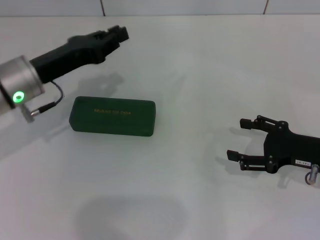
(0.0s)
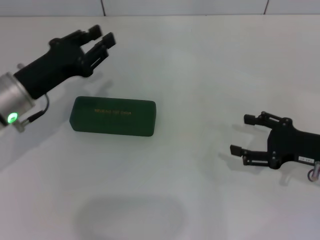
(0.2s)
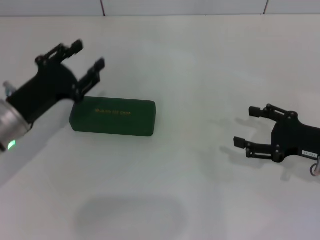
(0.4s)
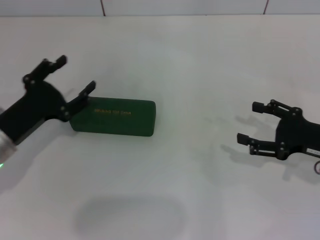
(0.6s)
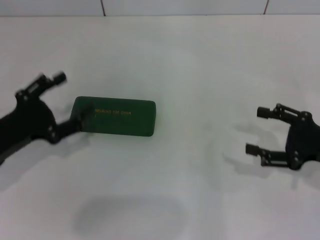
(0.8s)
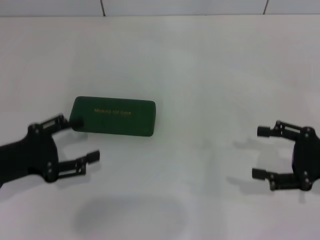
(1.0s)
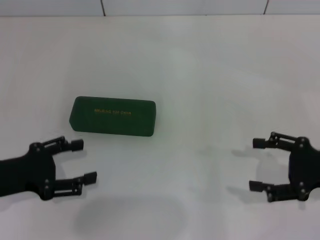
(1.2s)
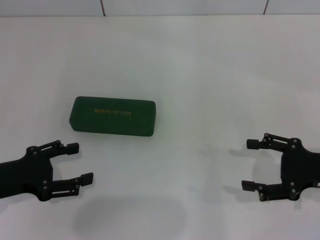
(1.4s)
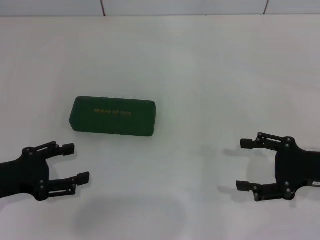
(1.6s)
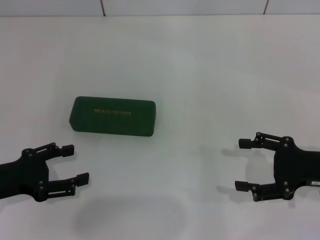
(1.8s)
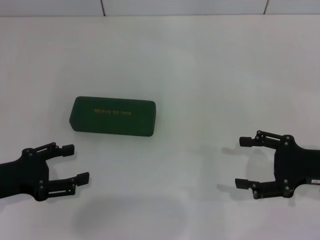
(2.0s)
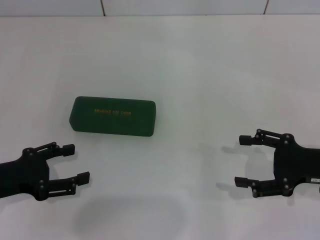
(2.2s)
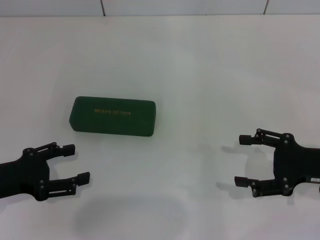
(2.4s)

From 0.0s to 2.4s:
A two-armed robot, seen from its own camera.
From 0.0s to 1.2s: The left gripper moves backward and to the left, some 15 cm, and opens.
From 1.2s to 2.4s: The grippers make only small movements.

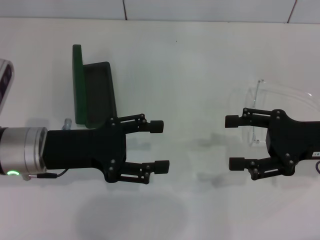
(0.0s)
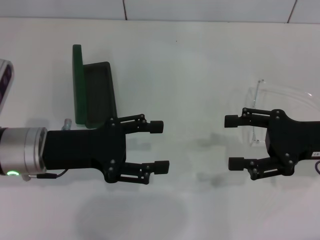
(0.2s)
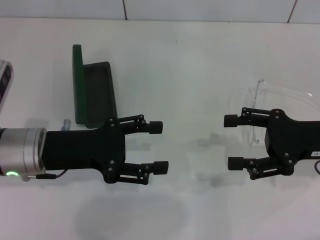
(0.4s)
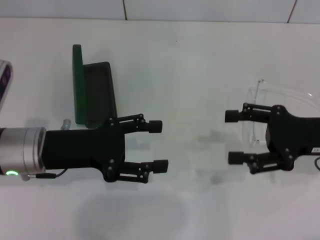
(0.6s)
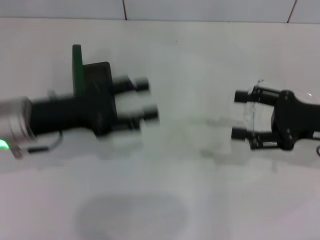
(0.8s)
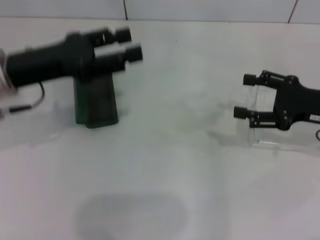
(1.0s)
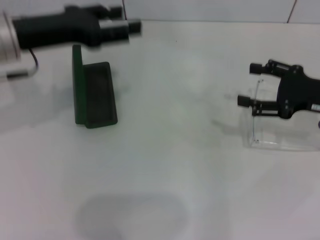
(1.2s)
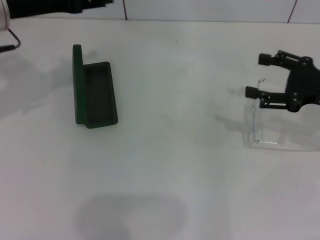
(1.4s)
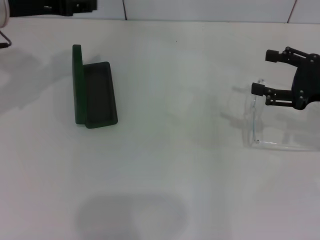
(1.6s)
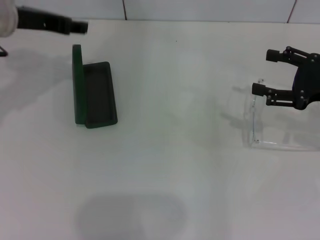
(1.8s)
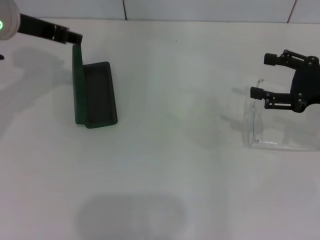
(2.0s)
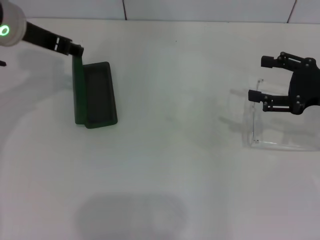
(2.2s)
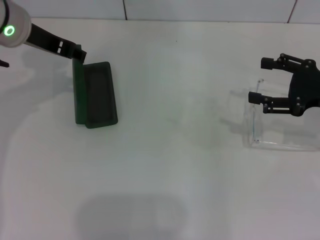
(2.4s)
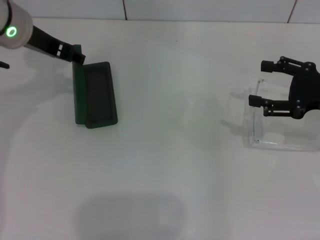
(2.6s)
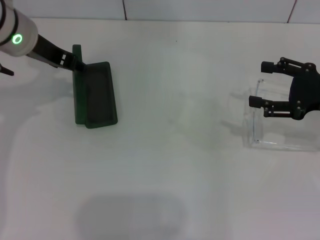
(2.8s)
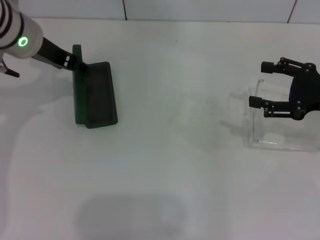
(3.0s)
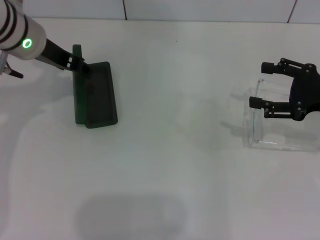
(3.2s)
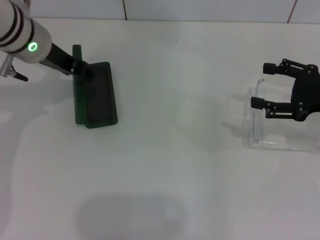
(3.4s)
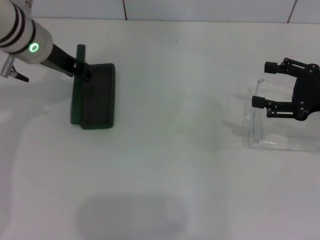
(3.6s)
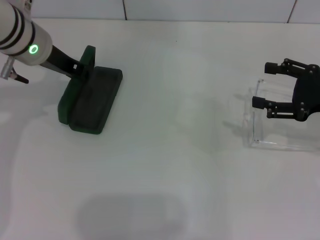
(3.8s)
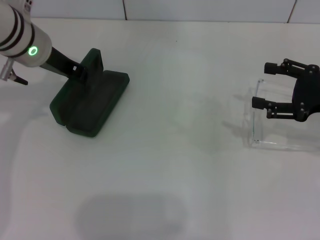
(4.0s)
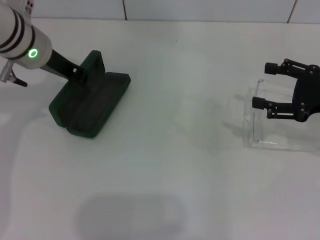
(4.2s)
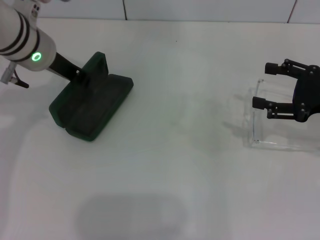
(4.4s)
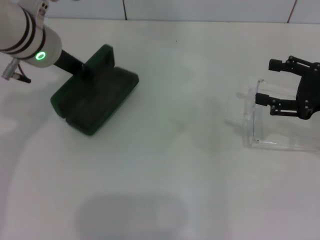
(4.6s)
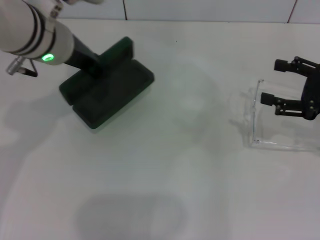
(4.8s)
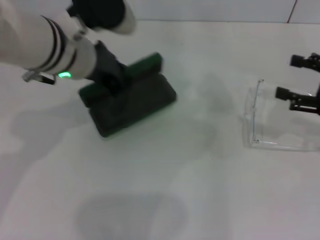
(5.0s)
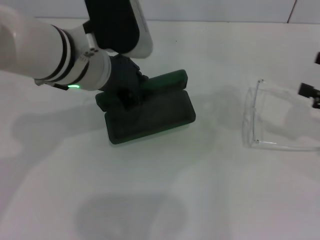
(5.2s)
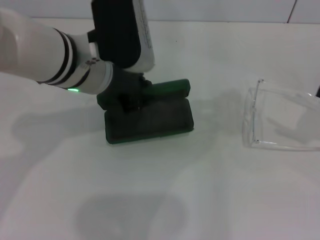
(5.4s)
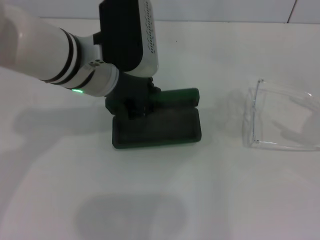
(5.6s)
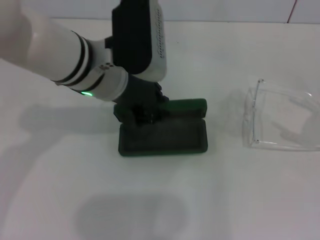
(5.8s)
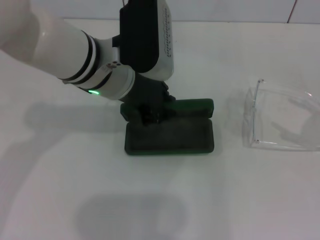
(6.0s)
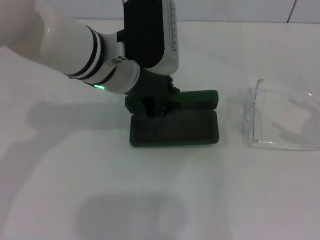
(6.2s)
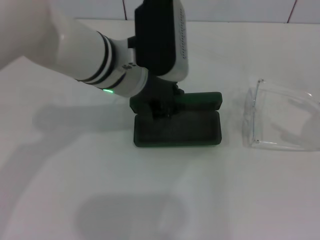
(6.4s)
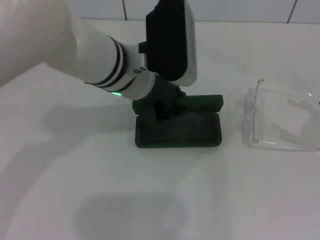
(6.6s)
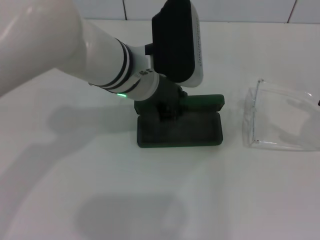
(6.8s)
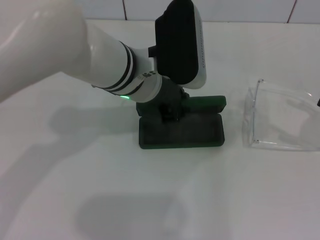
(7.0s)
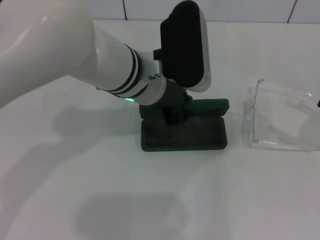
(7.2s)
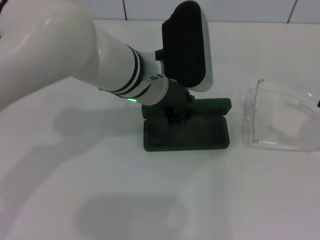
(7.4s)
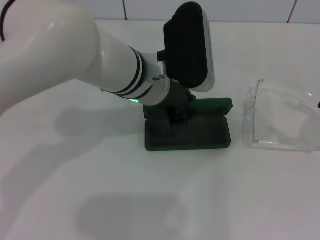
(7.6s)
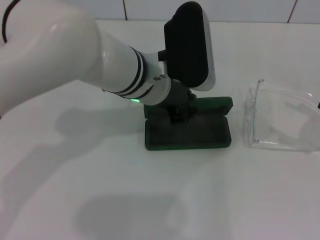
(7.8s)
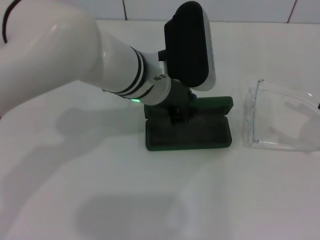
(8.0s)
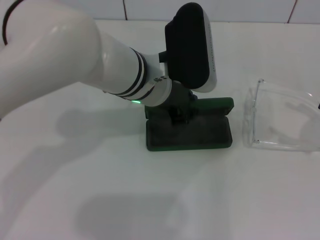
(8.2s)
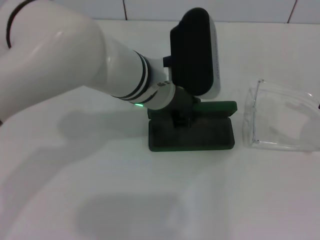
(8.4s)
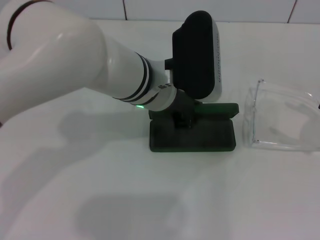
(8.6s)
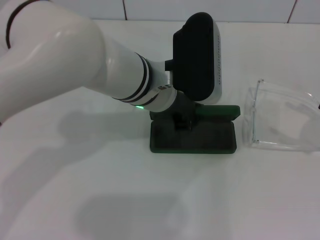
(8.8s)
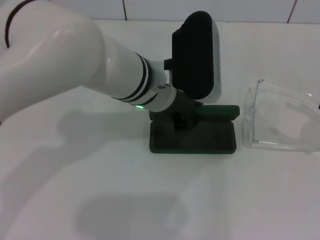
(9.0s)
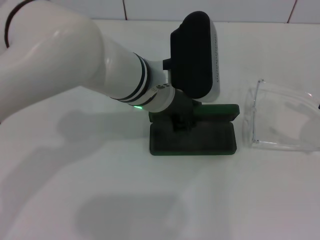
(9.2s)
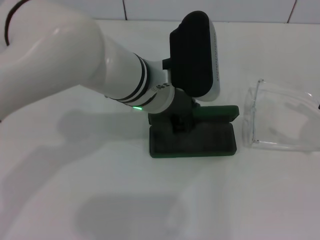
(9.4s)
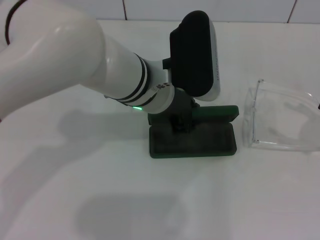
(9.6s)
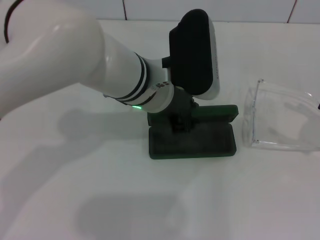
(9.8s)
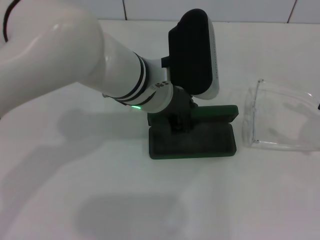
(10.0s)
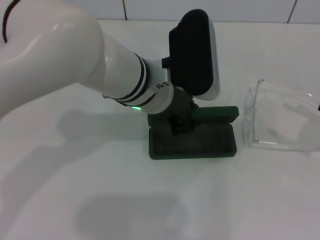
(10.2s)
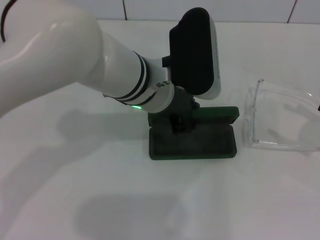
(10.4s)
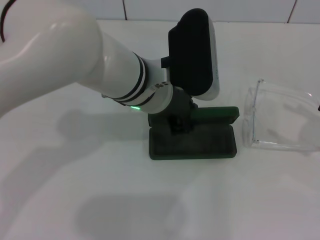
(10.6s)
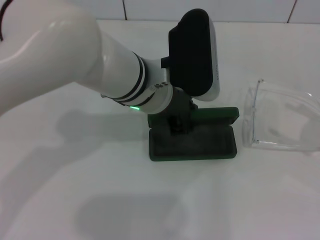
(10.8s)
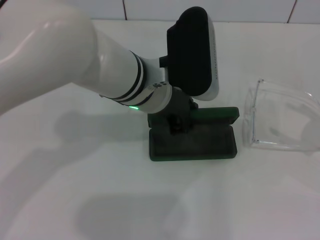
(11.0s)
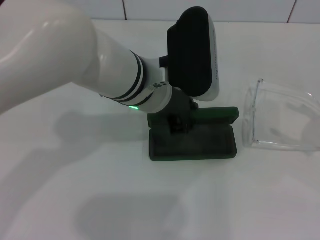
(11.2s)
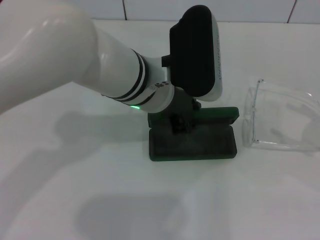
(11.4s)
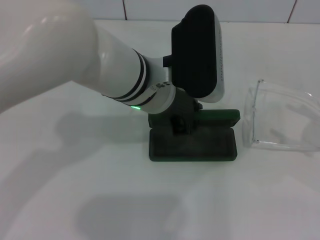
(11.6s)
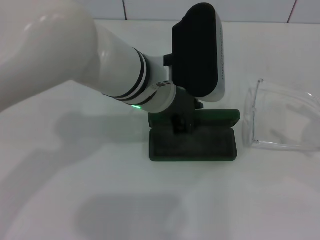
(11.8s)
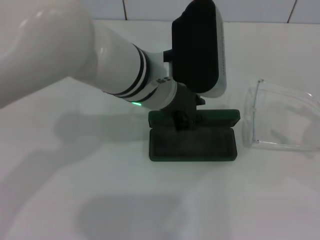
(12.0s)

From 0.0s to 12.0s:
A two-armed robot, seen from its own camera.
Step, from 0.0s to 4.0s: Grab the glasses case with your left hand.
Step, from 4.2s to 10.8s: Place the glasses case in the center of the table with your left hand.
From 0.0s to 1.6s: The right gripper moves roughly 5 cm. Meanwhile the left gripper shifts some 15 cm upward and forward.
From 1.6s to 3.0s: The left gripper moves roughly 5 cm.
From 3.0s to 4.4s: The left gripper closes its fingers.
From 4.4s to 6.0s: Both grippers travel together to the right and backward, roughly 10 cm.
From 6.0s to 7.6s: The left gripper shifts by some 5 cm.
From 7.6s to 10.4s: Both grippers stay put.
From 10.4s to 12.0s: The grippers make only small movements.

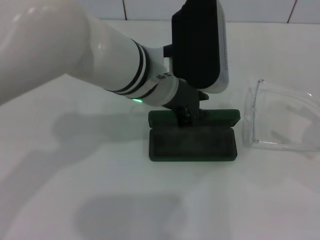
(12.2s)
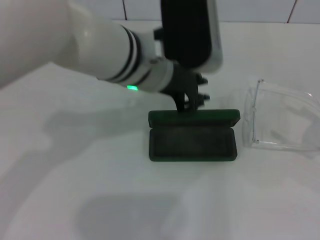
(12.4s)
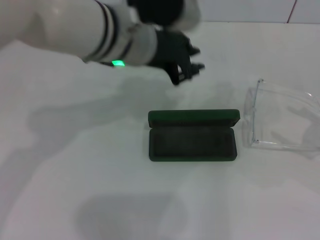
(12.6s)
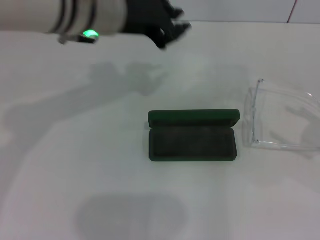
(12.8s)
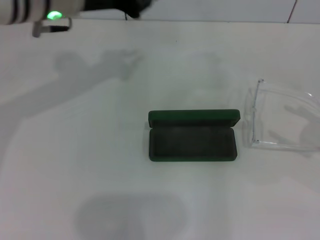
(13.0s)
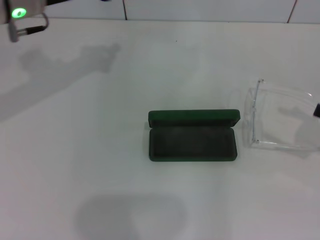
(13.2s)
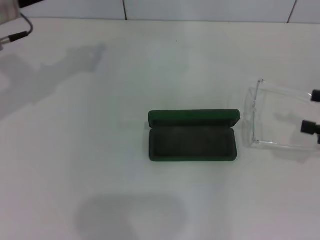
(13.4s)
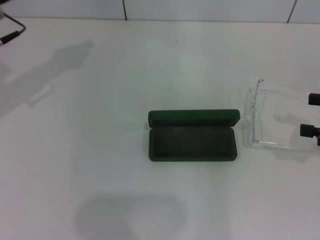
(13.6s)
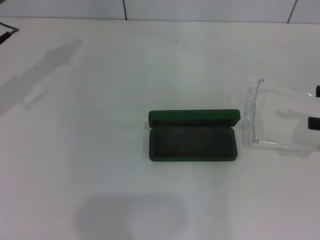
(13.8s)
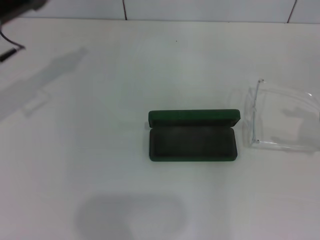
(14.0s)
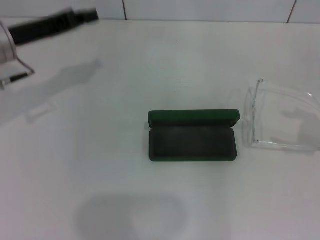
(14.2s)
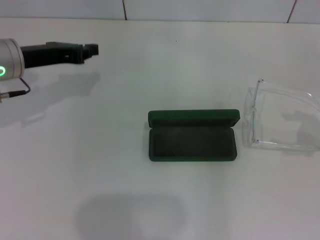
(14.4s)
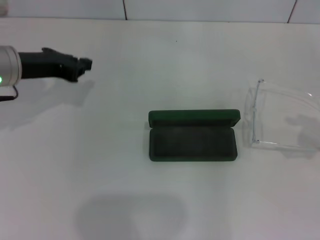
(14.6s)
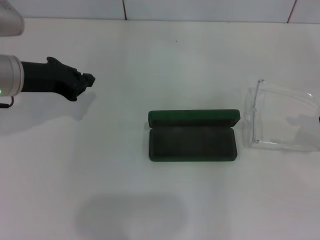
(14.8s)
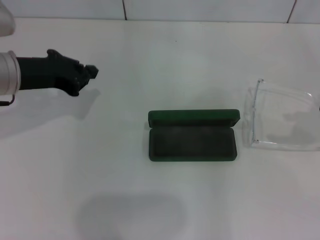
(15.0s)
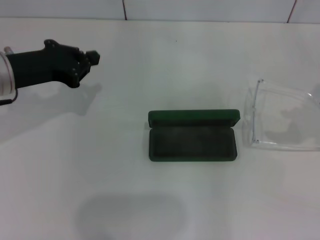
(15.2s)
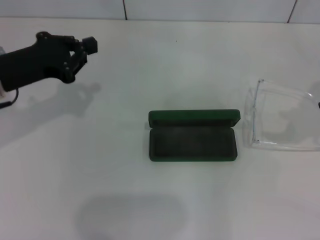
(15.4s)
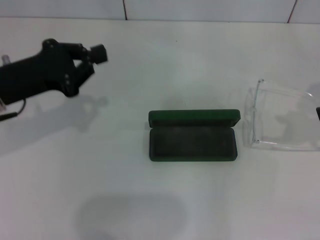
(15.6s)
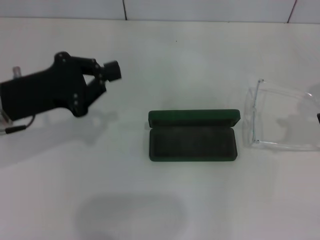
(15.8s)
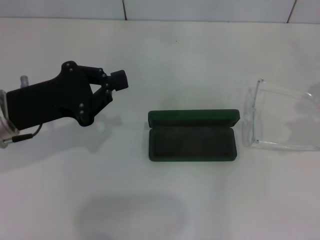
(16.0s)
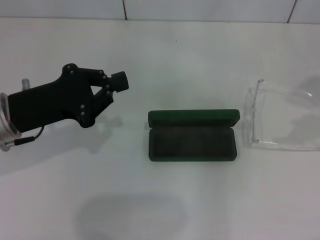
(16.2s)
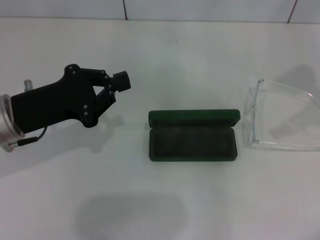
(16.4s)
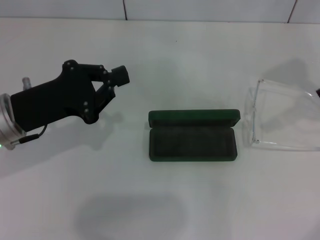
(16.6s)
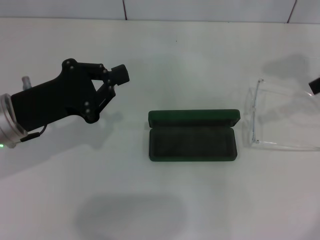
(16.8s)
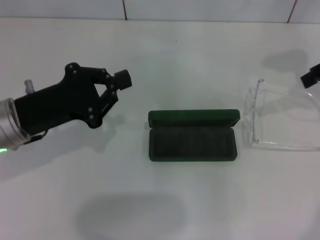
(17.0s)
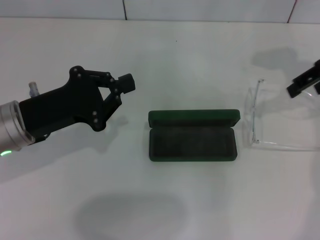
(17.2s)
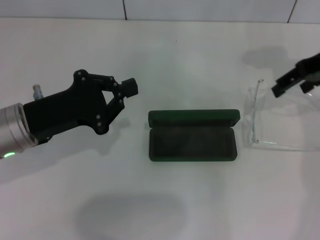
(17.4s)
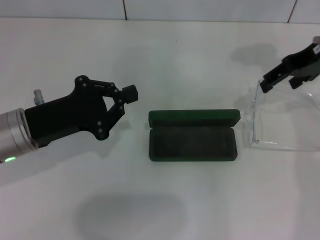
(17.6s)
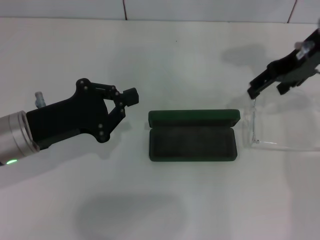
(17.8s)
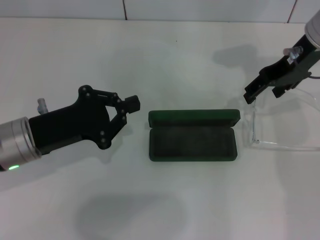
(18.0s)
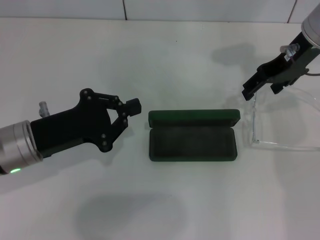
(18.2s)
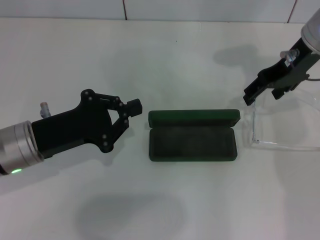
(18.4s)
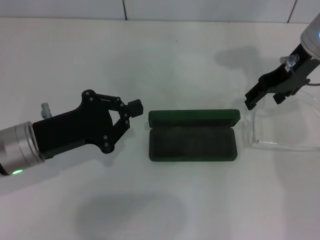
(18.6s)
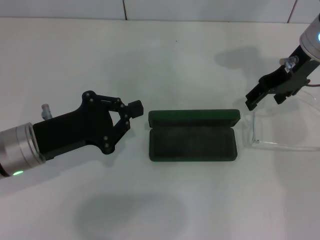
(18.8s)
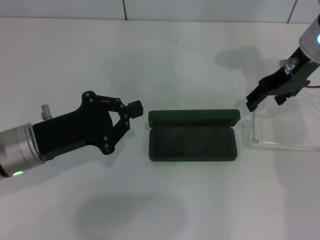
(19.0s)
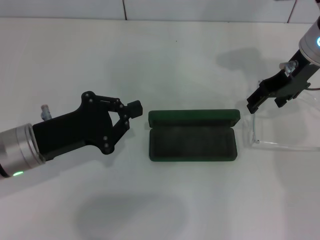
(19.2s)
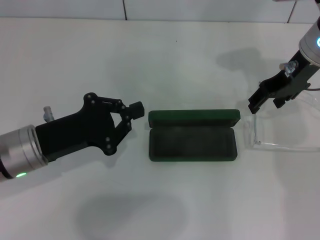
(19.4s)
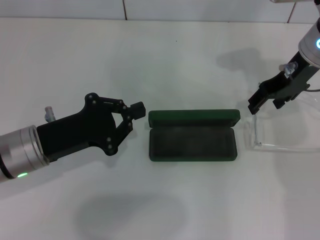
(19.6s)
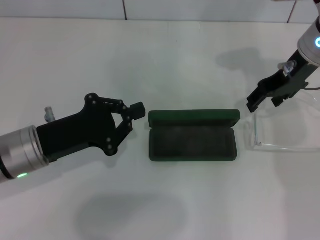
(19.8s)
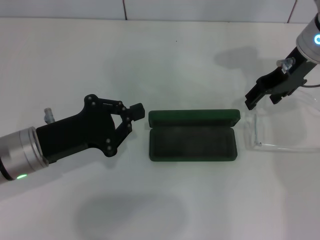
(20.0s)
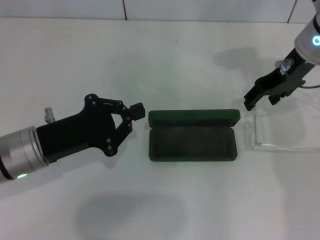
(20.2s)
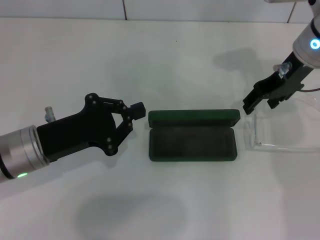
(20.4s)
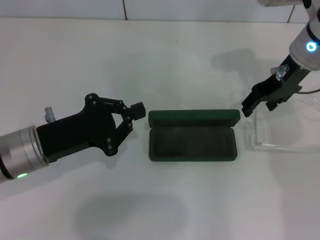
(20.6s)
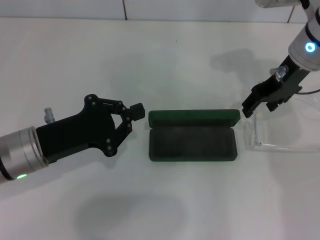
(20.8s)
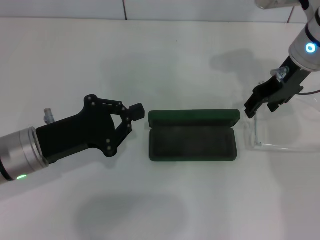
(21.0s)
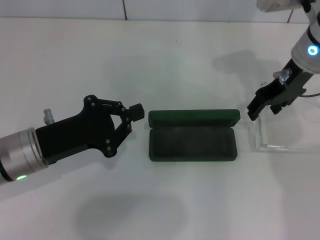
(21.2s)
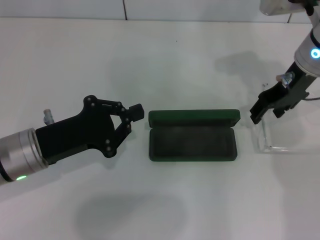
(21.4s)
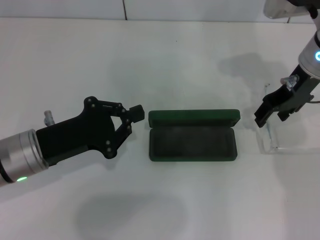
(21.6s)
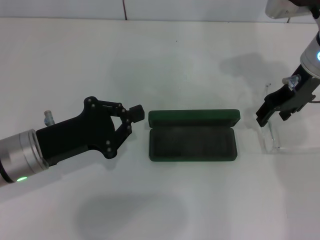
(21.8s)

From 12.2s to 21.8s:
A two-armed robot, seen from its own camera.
From 12.2s to 13.8s: The left gripper travels to the left by roughly 25 cm.
From 13.8s to 15.4s: The left gripper goes about 5 cm backward.
From 15.4s to 17.0s: The right gripper heads forward and to the left, covering roughly 10 cm. Meanwhile the left gripper moves some 5 cm.
From 17.0s to 18.6s: The right gripper shifts approximately 10 cm to the left and downward.
From 18.6s to 20.2s: Both grippers stay about where they are.
From 20.2s to 21.8s: There are only small adjustments of the grippers.
